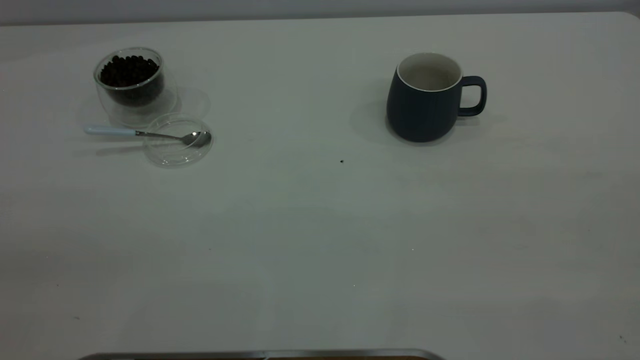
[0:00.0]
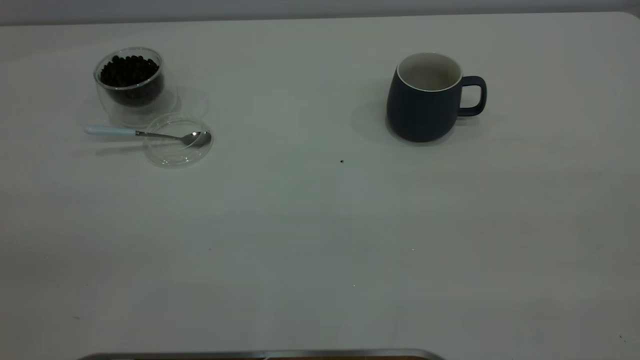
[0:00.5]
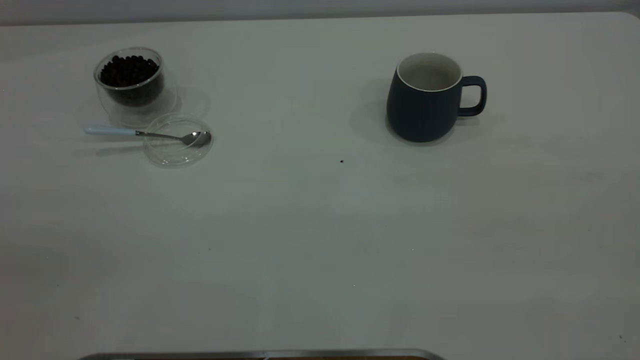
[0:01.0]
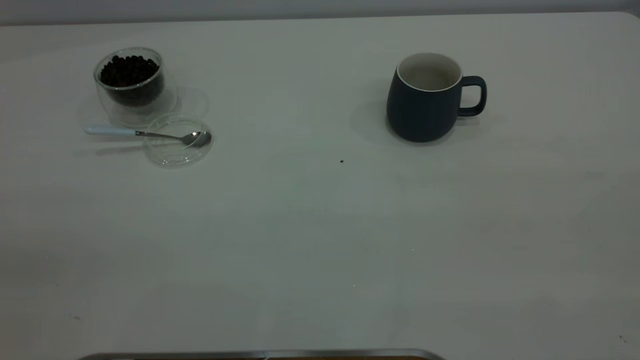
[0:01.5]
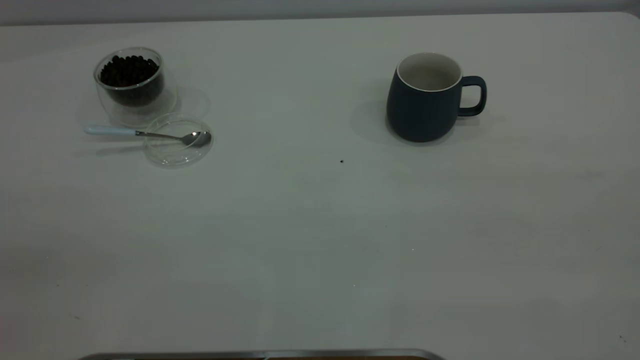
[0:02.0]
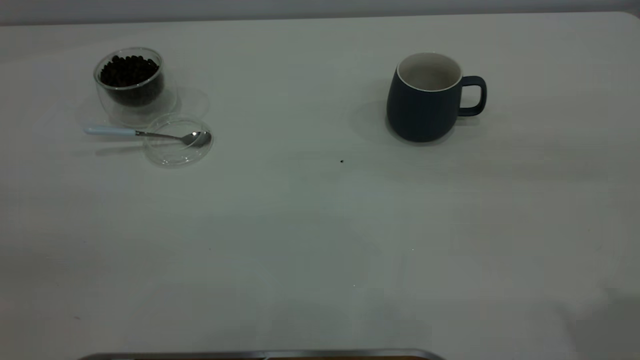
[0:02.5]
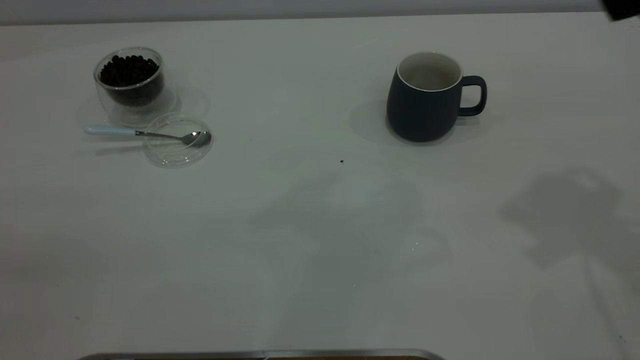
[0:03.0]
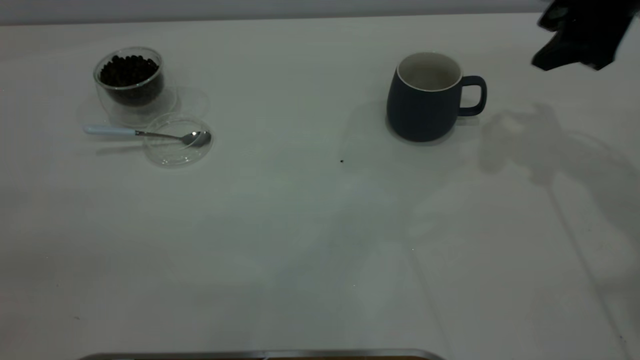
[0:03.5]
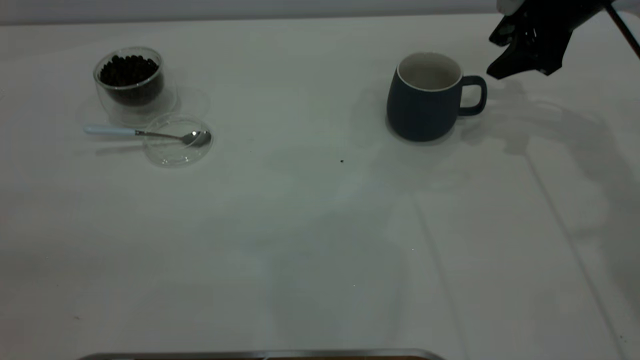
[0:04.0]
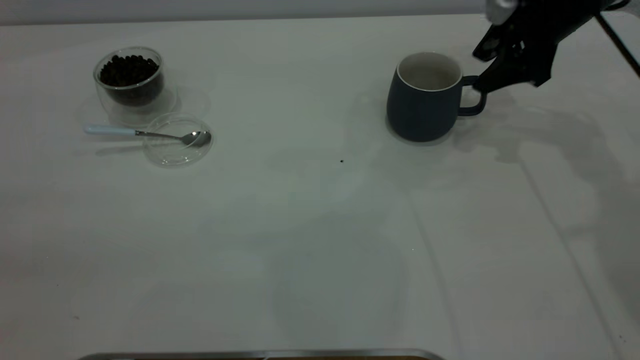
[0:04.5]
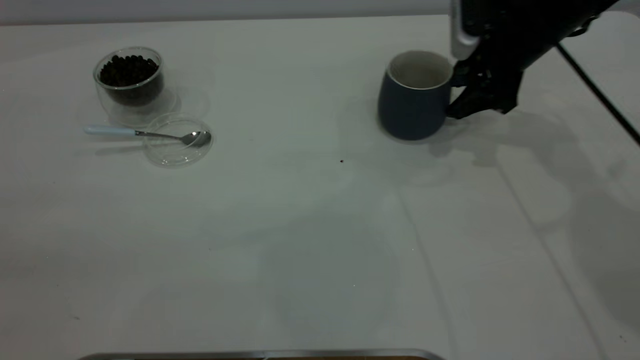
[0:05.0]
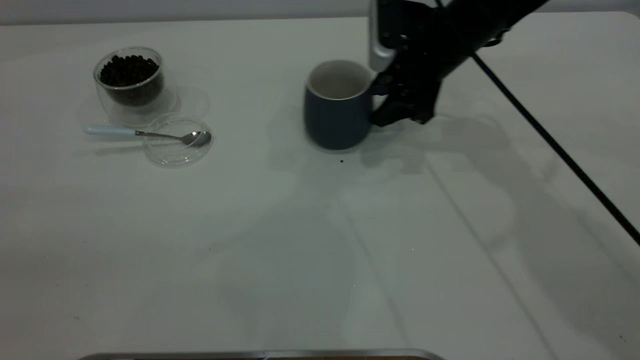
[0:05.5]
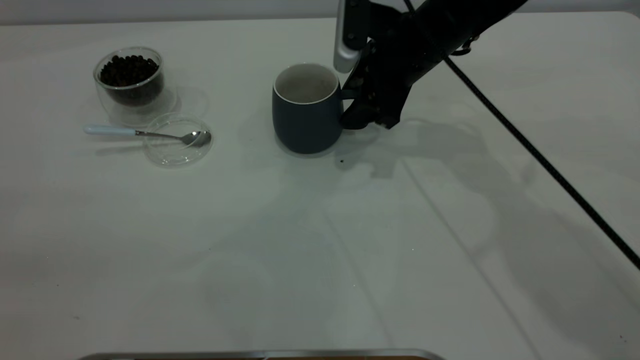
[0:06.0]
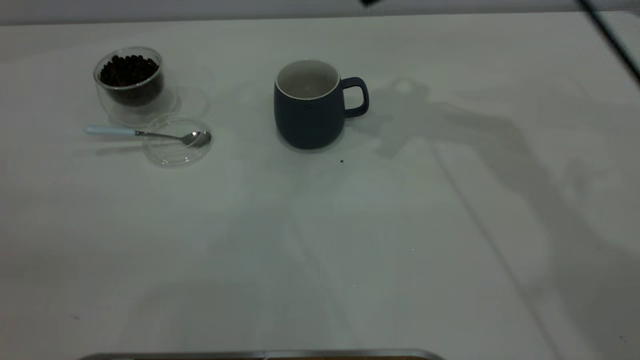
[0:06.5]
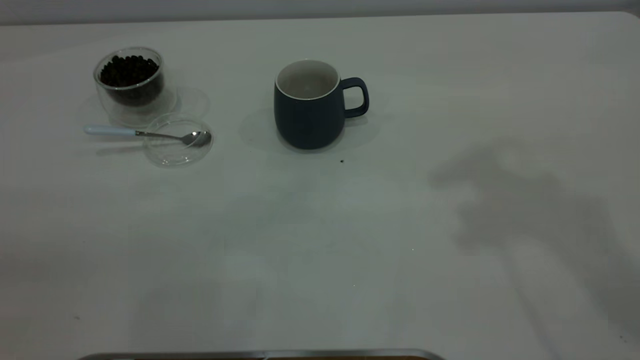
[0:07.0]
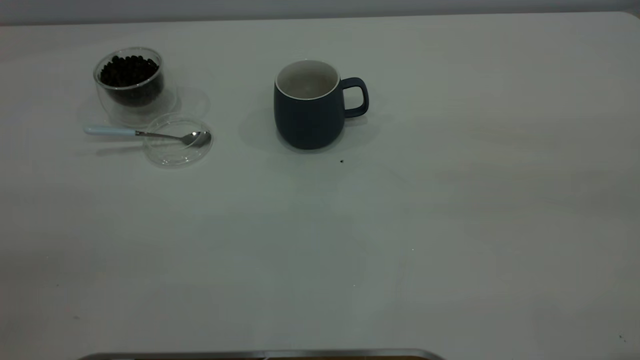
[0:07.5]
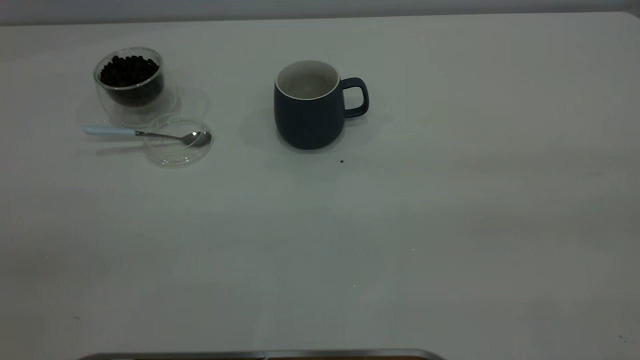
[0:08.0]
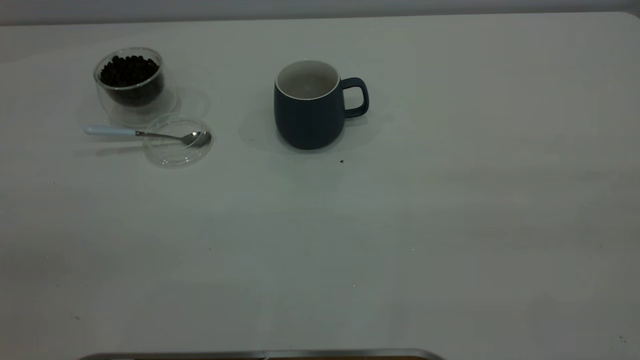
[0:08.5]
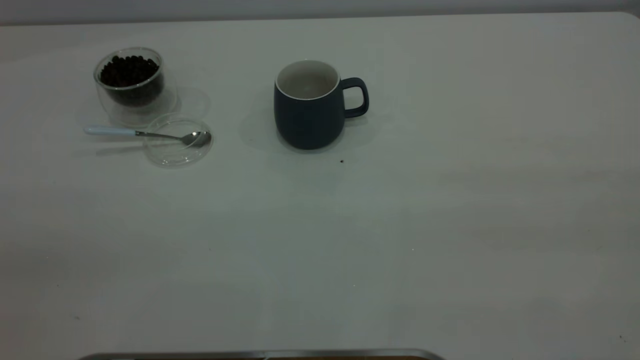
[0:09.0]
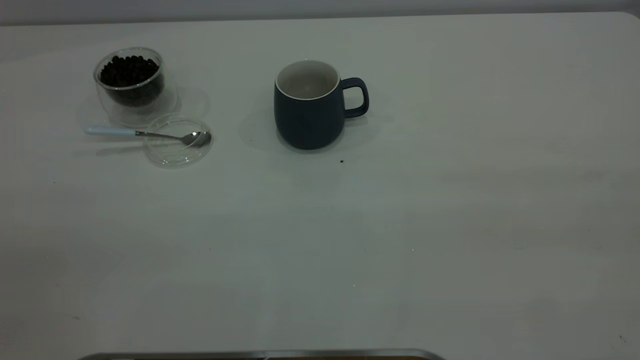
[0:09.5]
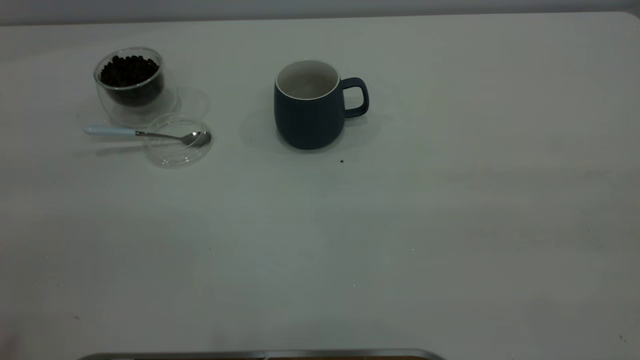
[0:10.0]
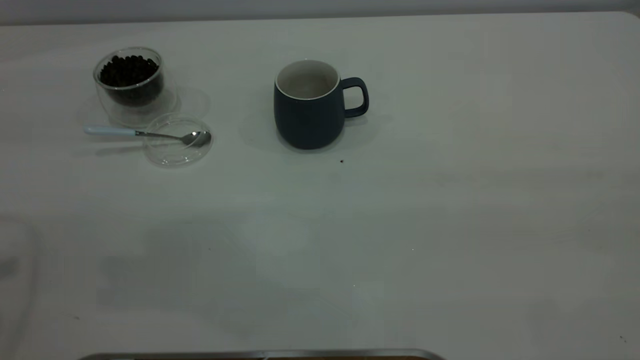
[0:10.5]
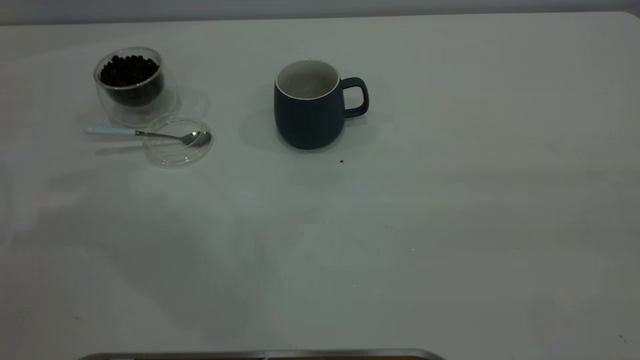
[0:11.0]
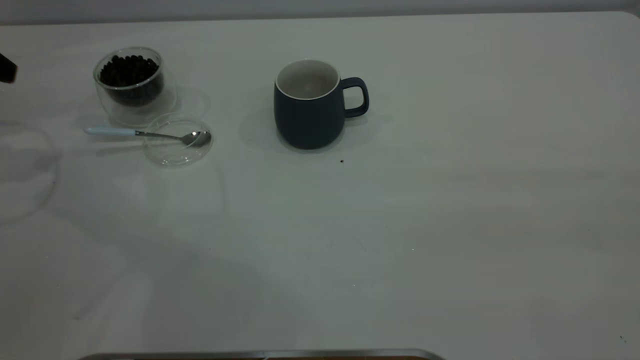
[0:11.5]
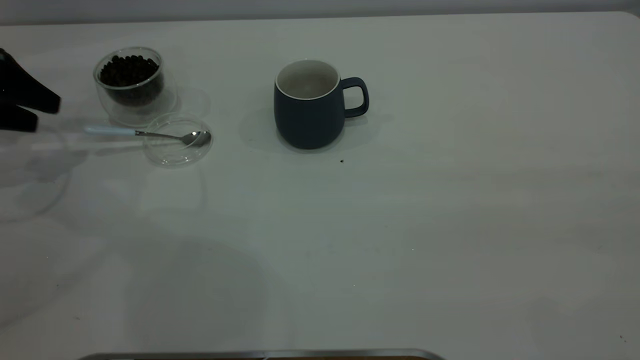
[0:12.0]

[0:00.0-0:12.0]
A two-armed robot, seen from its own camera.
Task of the whole recording: the right gripper place the grey cup in the center of the table, the left gripper take the blue spoon from the cup lid and scoop out the coffee beans from the coffee cup and put them into the grey cup, the left gripper put the spoon back into the cup lid.
Step, 0:00.0 to 0:06.0: Move the cup to the center of view.
0:00.0 to 0:02.0: Neither gripper changes place.
0:02.0 to 0:04.0: The right gripper heads forward and downward, covering some 50 cm, and opens its fingers.
0:04.0 to 0:06.0: The right gripper is displaced to the left by approximately 15 cm.
0:06.0 to 0:08.0: The right gripper heads backward, upward and to the right, covering about 50 cm.
0:10.0 to 0:12.0: The left gripper heads forward, downward and to the left, covering some 40 cm.

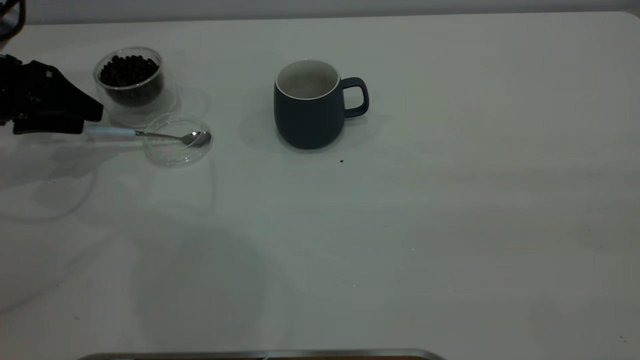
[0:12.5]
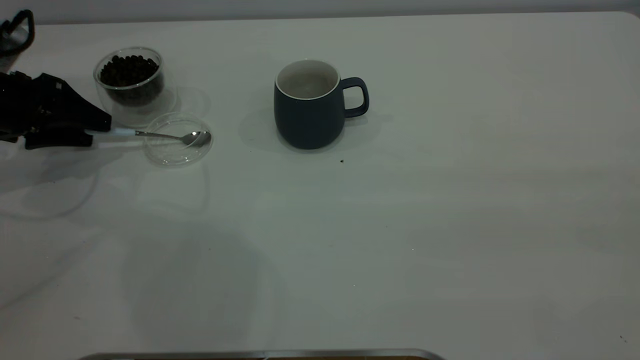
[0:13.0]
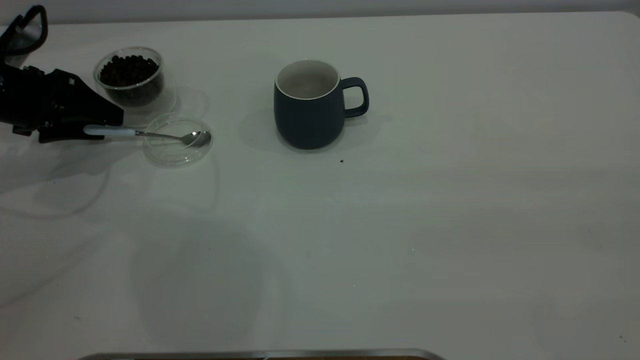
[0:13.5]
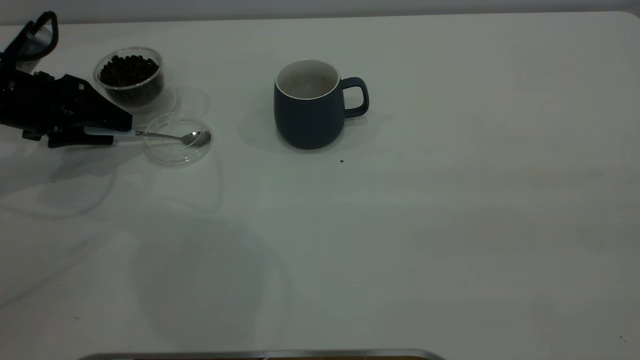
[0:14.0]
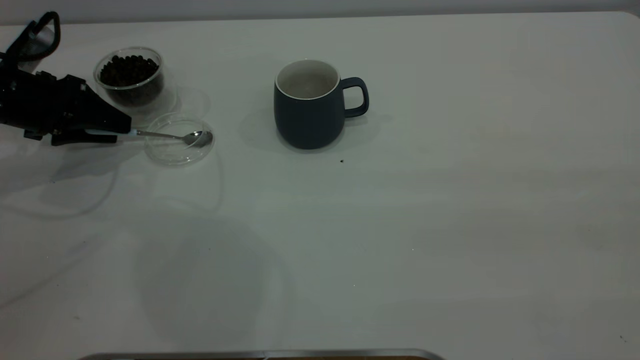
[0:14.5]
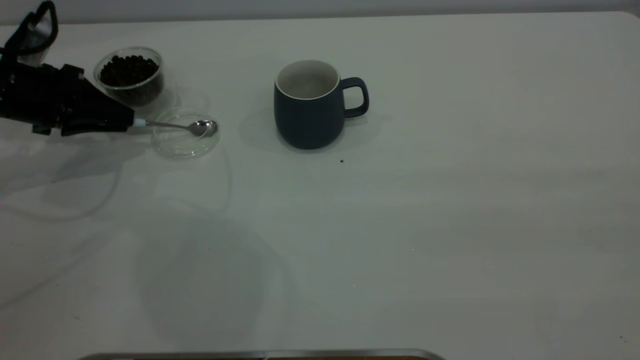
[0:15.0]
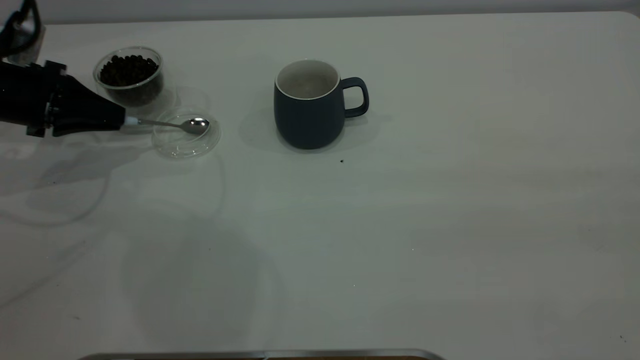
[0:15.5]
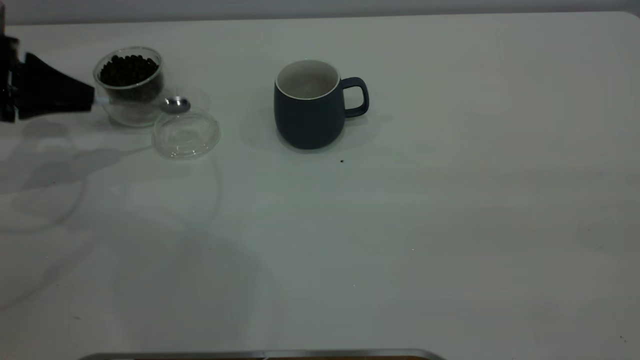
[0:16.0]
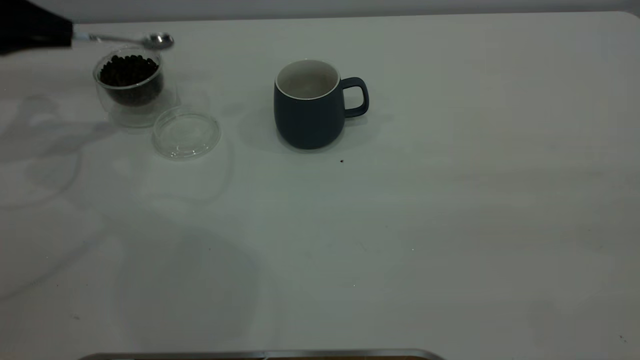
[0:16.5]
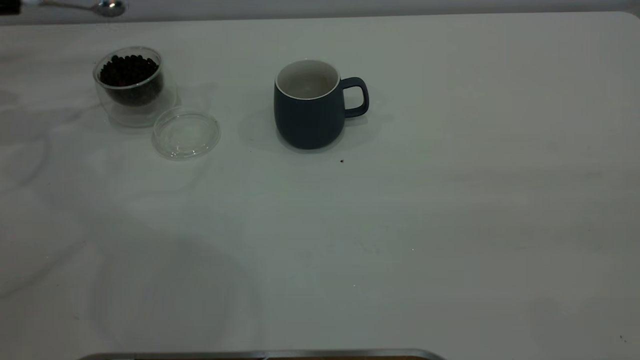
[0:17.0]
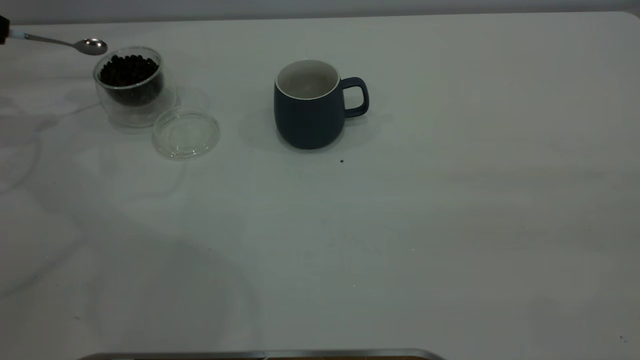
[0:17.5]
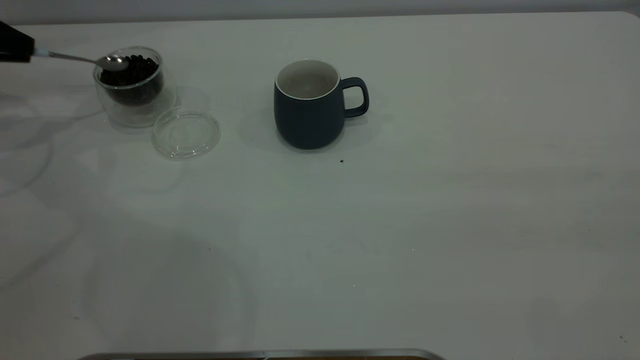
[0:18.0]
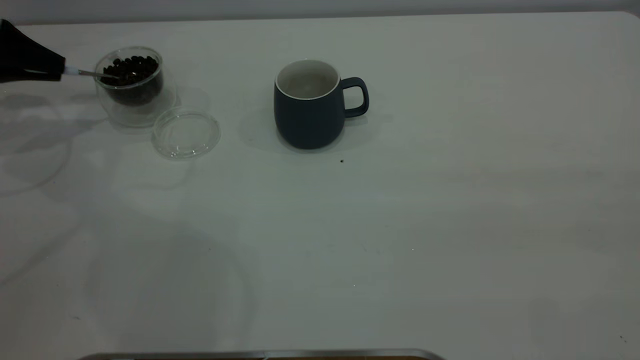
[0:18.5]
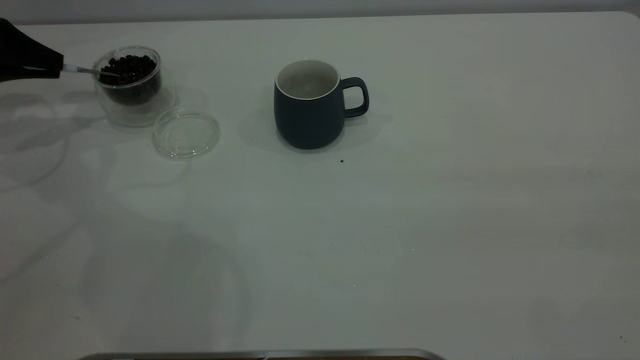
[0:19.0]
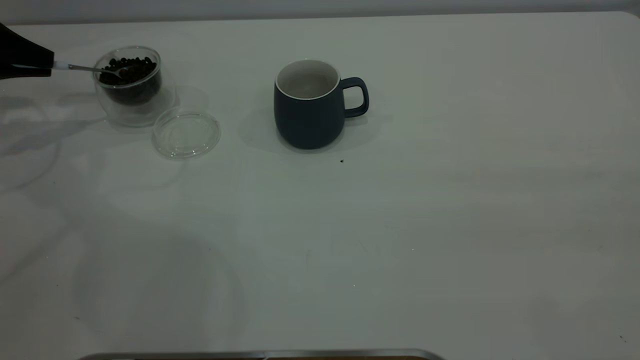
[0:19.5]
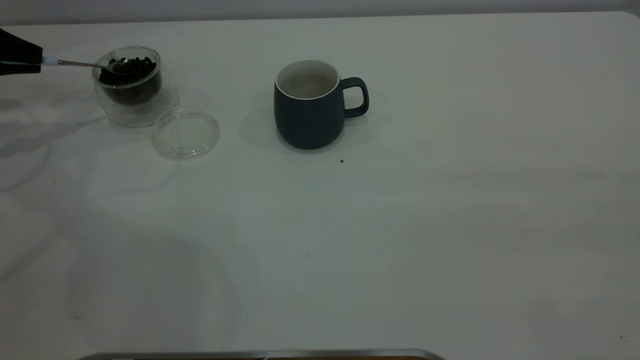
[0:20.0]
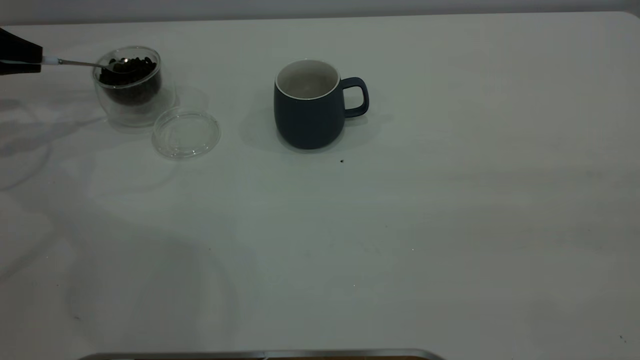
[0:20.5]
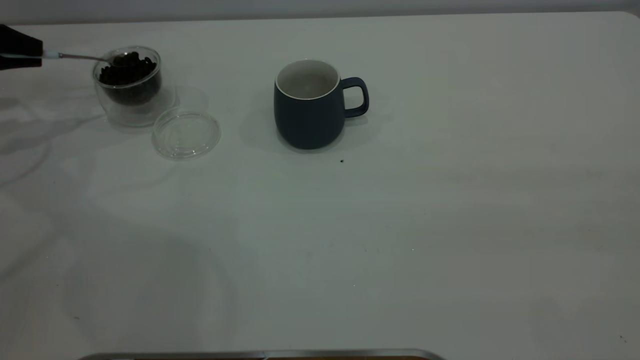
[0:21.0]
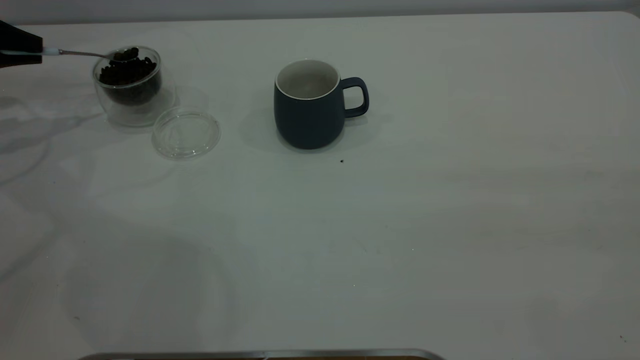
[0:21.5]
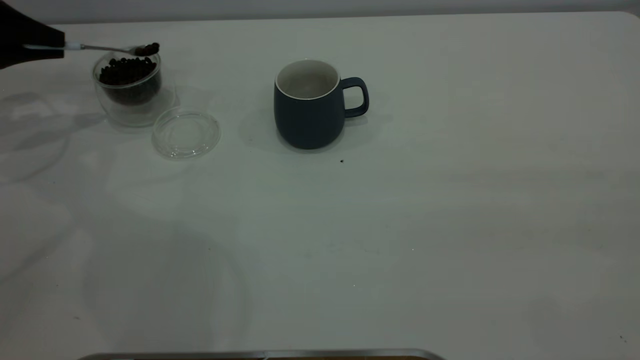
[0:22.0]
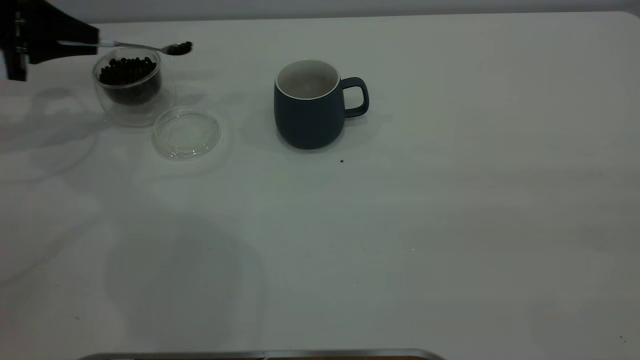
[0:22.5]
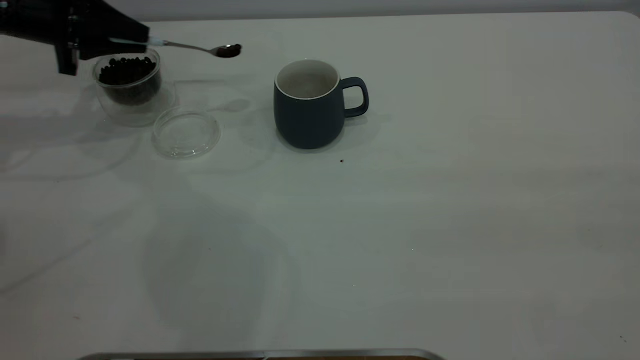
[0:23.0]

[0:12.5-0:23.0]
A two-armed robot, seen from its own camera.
Task of the whole recording: the right gripper place the grey cup in the center of the table, the left gripper take the blue spoon from the cup lid and scoop out the coffee beans from the coffee cup and put them into the grey cup, the left gripper put the spoon back into the cup lid.
Step, 0:12.5 to 0:17.0: Pick up the spoon.
0:12.5 to 0:14.5: The left gripper closes.
0:14.5 to 0:16.5: The left gripper is displaced upward by roughly 10 cm, and closes its fingers.
0:16.5 to 0:19.0: The left gripper changes place by approximately 5 cm.
0:21.0 to 0:23.0: The left gripper moves to the right, roughly 10 cm.
